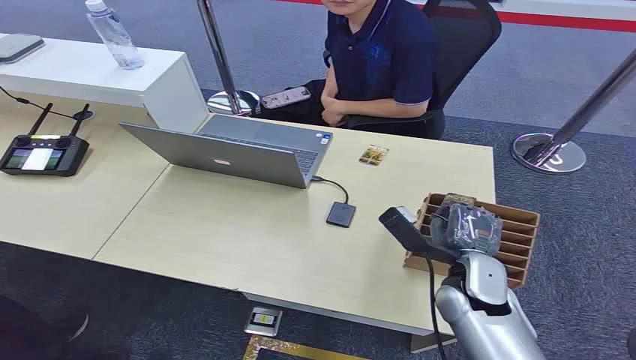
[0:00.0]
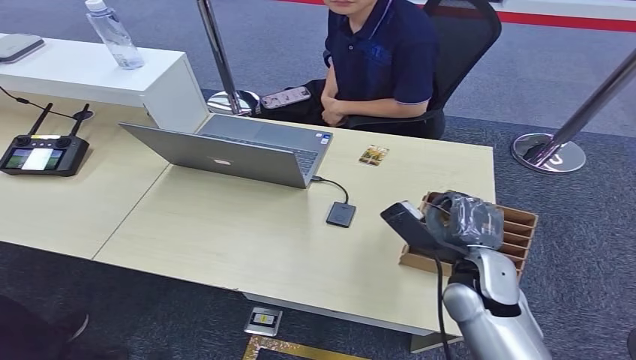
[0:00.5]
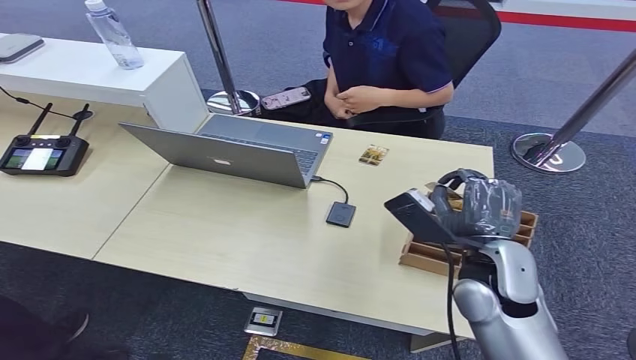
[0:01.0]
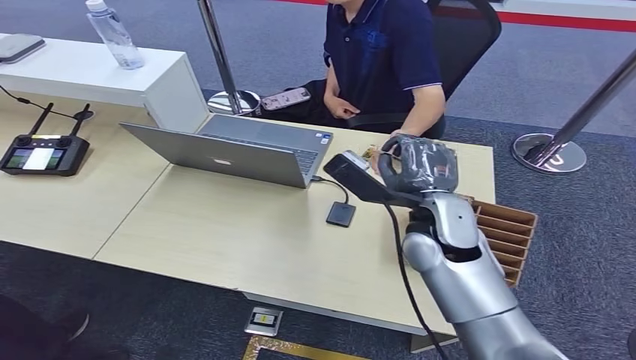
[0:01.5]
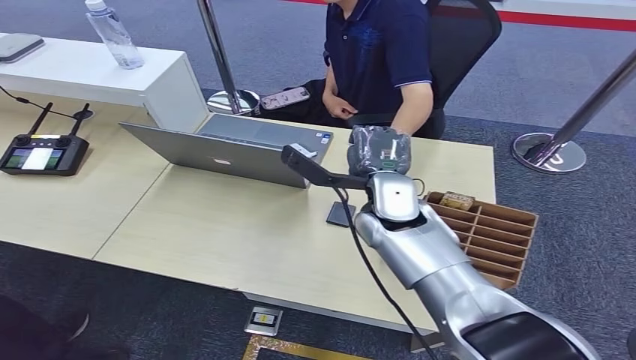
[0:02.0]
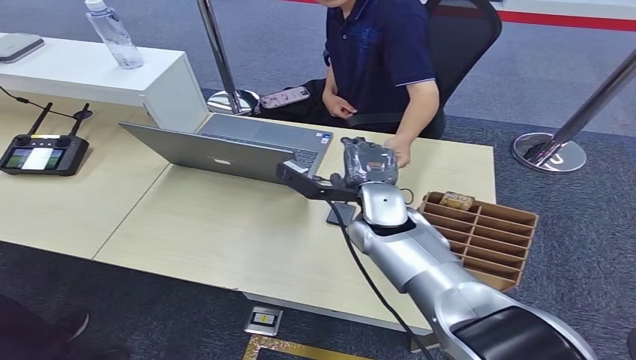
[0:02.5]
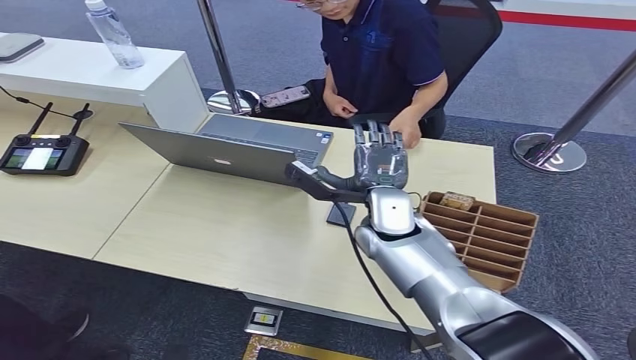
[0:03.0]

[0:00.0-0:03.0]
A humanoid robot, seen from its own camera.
Step, 0:00.0 to 0:01.0: Pick up the key card from the card box.
Step, 0:01.5 to 0:03.0: Hand the key card to the target.
0:01.5 to 0:03.0: The right hand shifts some 5 cm to the left.
